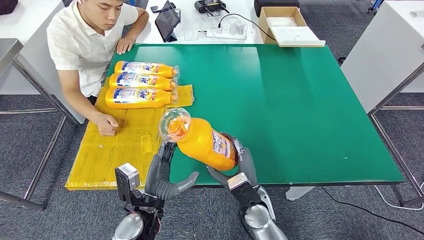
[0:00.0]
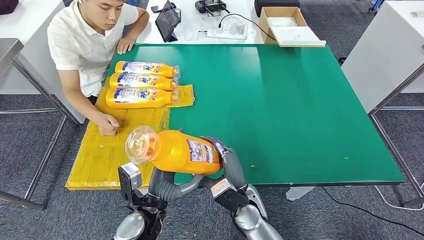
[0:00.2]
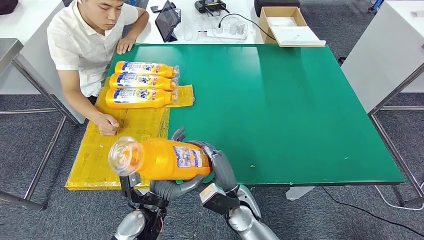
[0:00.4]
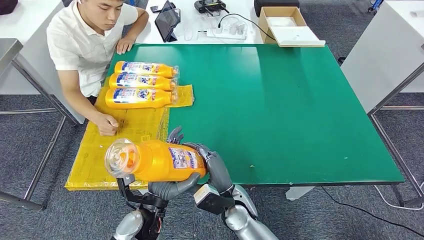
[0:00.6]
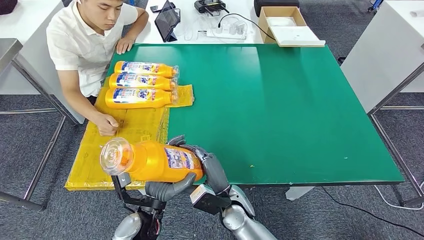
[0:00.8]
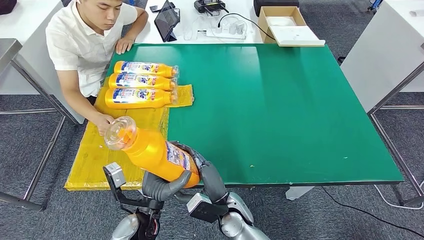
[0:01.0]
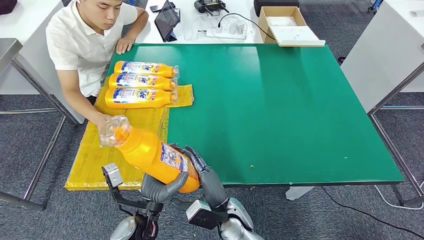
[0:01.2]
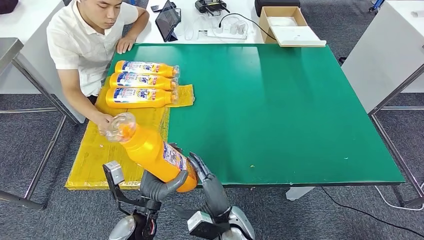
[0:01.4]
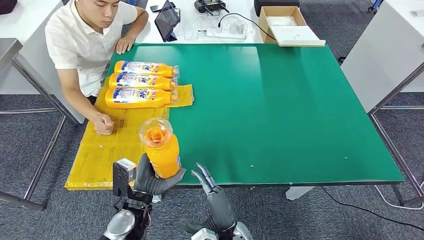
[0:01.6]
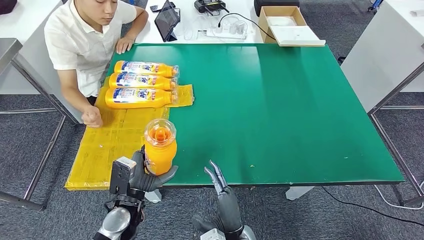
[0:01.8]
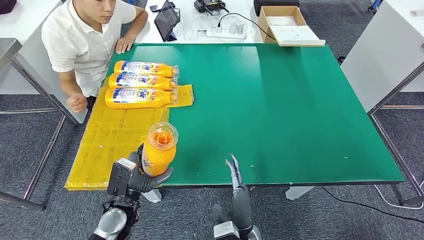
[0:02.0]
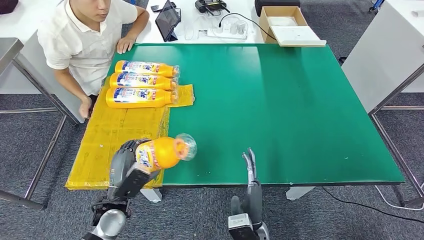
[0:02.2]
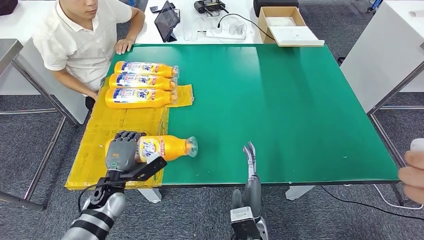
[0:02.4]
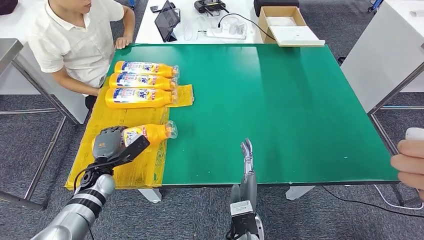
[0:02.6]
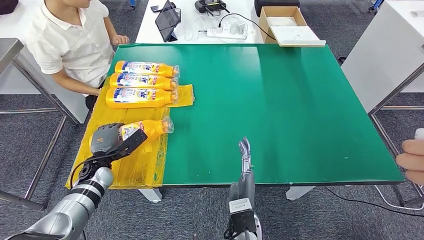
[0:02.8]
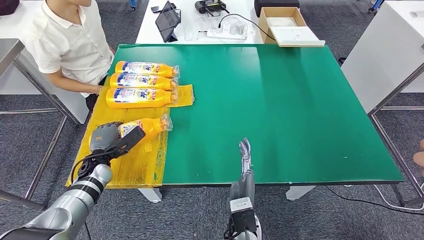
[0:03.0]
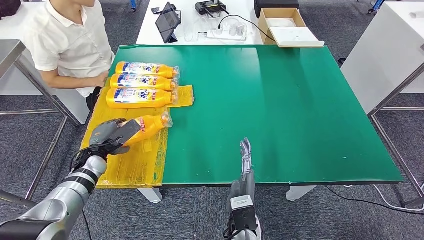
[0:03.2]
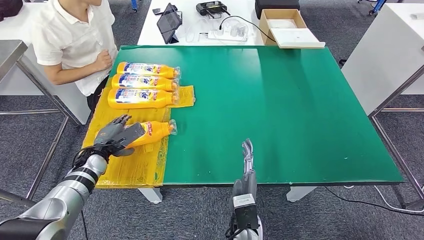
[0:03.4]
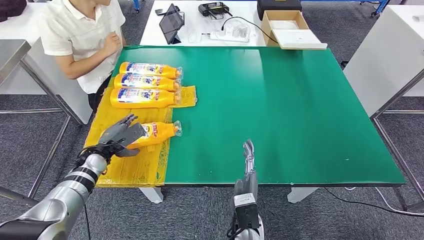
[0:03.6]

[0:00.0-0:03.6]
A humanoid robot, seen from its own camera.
Step, 0:00.2 to 0:03.4: Flip the fast-moving consumer goods bottle to the front side.
0:00.0 to 0:01.8: The right hand is displaced backward by about 10 cm. The left hand heads to the left, covering about 5 cm.
